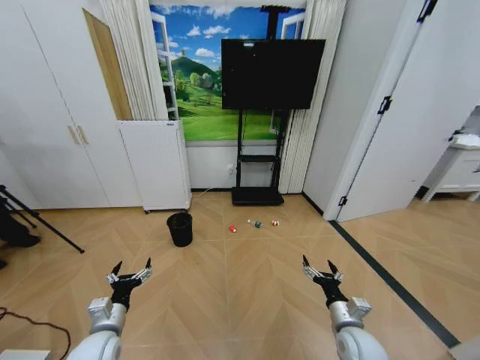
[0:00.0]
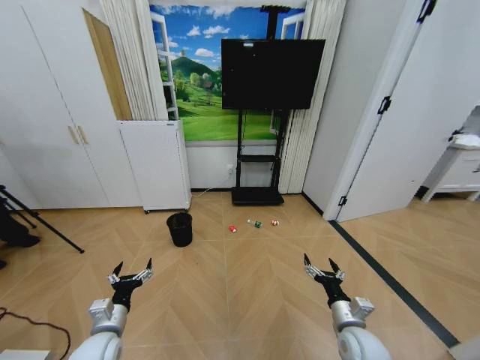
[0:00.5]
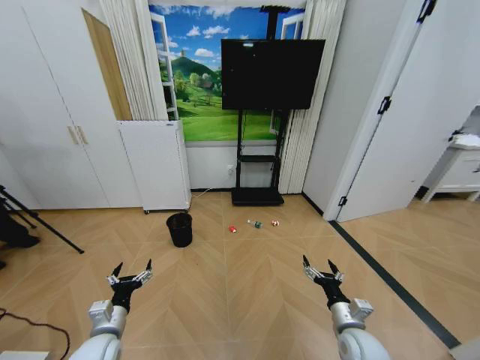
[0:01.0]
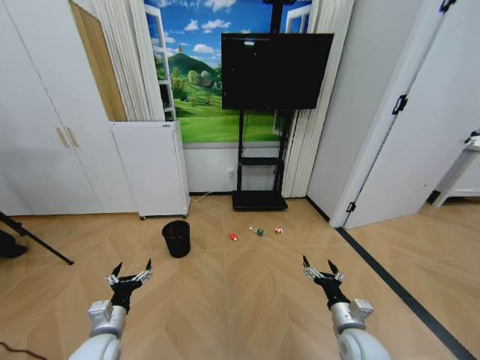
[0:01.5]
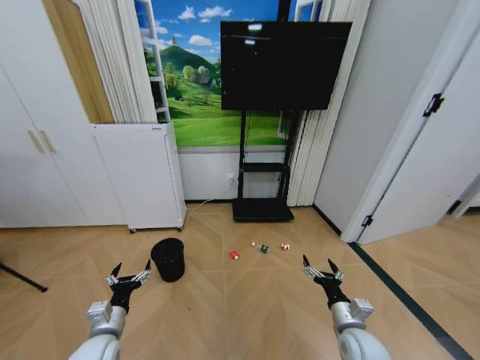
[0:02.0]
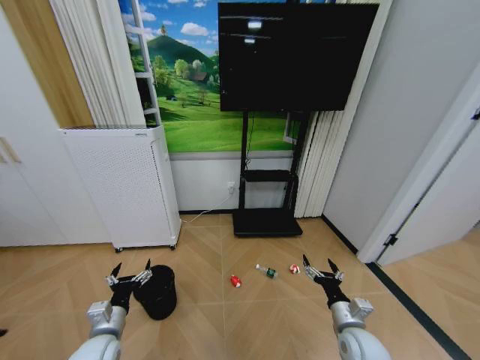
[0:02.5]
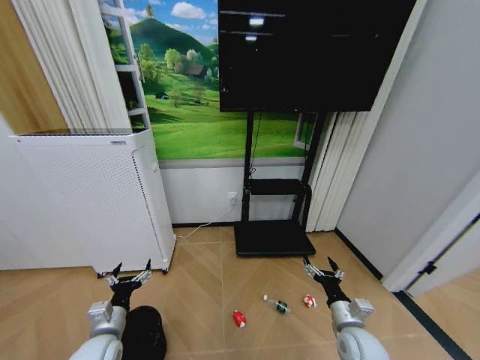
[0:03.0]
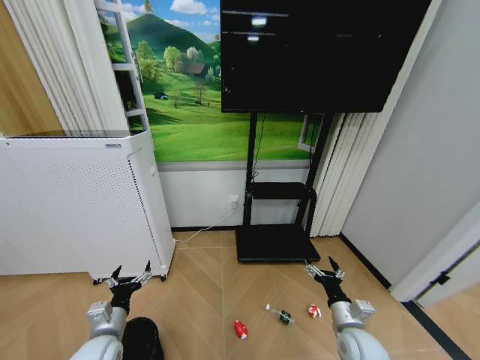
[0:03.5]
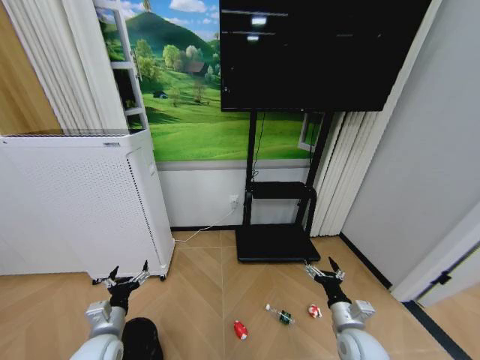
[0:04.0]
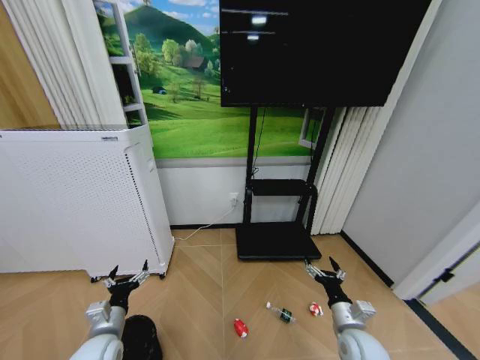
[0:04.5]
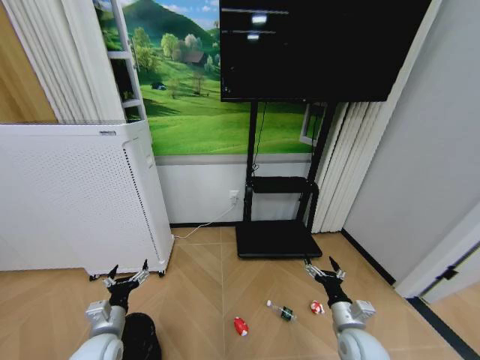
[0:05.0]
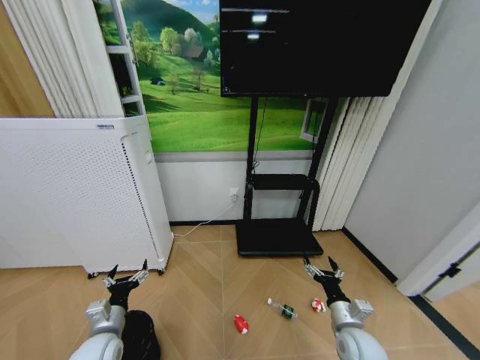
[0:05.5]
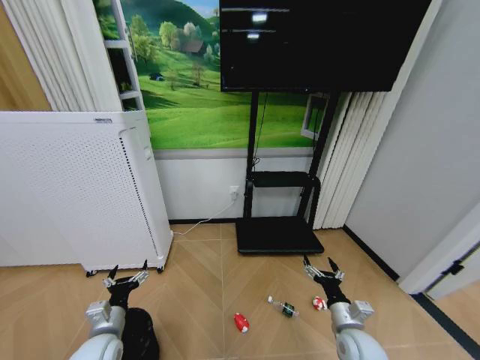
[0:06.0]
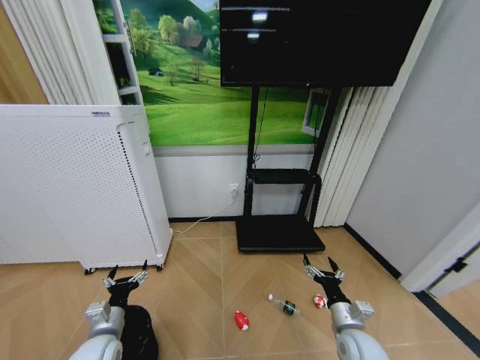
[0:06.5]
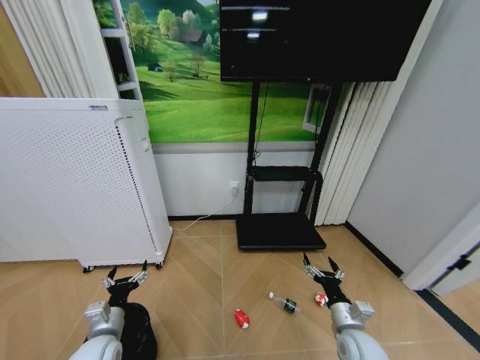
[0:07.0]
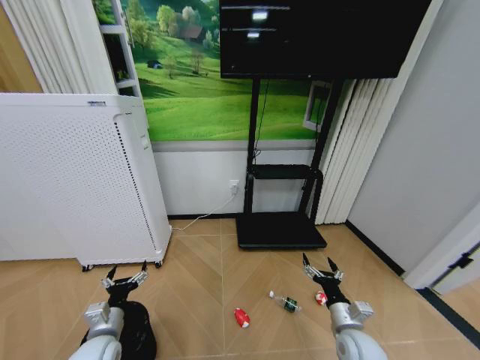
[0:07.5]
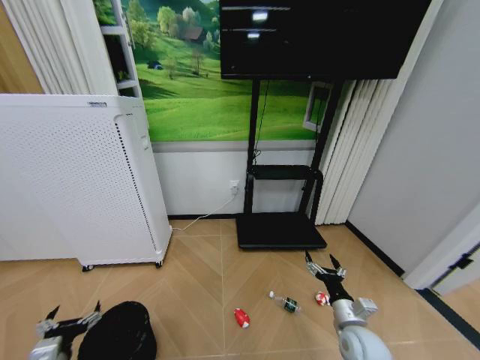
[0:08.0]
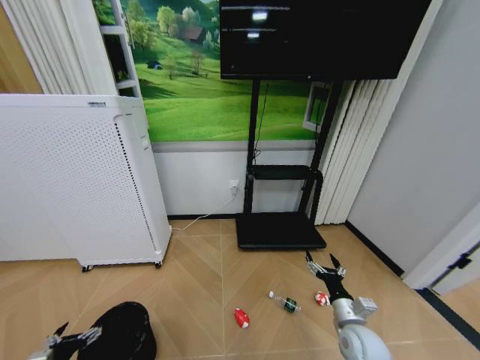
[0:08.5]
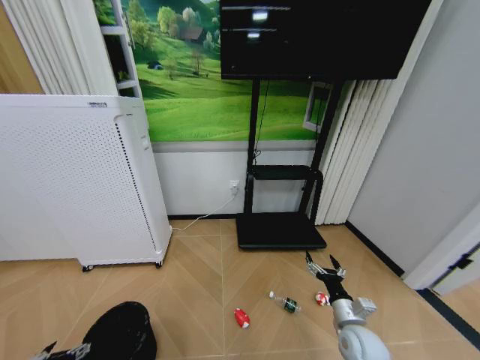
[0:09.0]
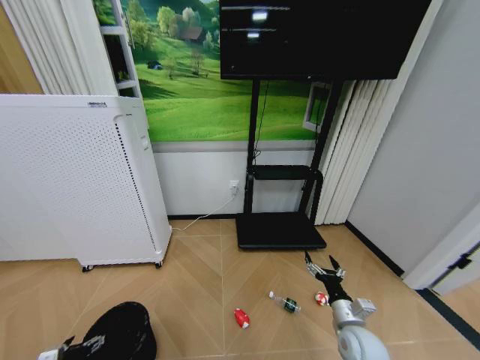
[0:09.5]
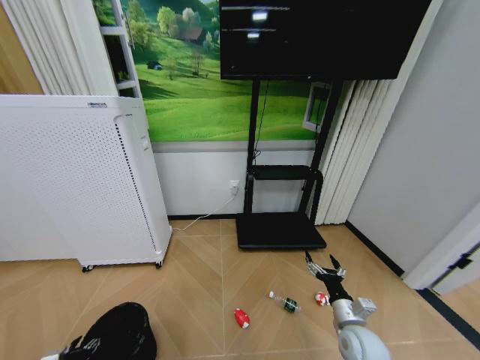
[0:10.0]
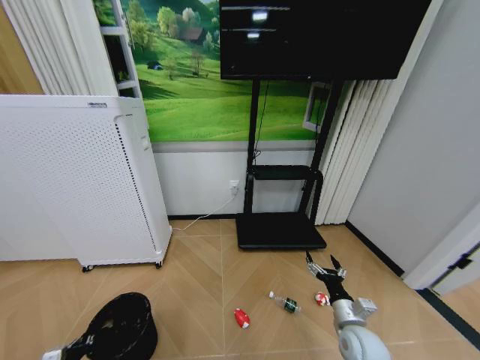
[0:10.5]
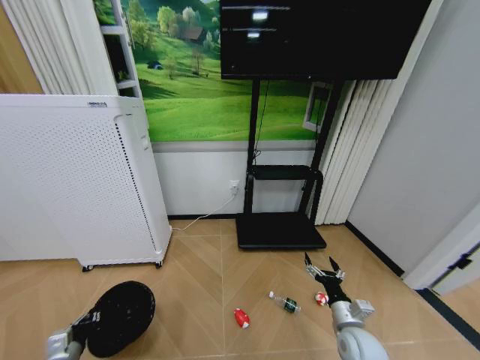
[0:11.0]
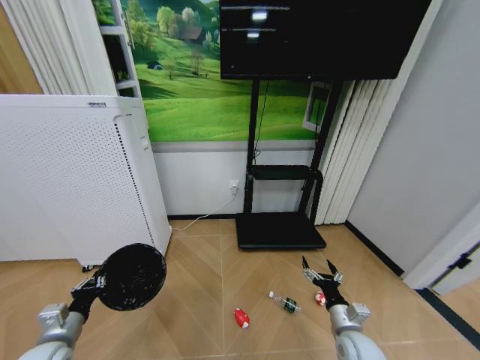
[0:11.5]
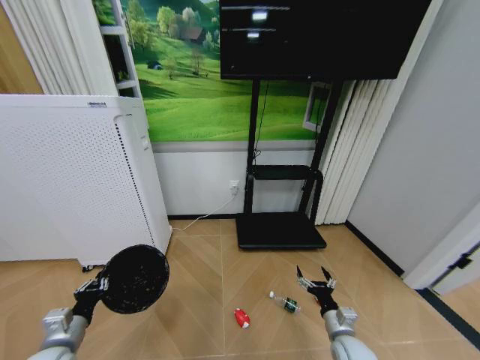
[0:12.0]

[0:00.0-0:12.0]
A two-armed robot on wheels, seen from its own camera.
Task of the whole recording: Pick up the trash bin and place the garbage on the floor into it.
0:04.0 to 0:06.0: The two grippers keep their place.
0:06.0 to 0:08.0: The left gripper heads backward and to the left, covering some 10 cm.
0:08.0 to 0:10.0: The left gripper moves downward and to the left, roughly 15 cm.
0:10.0 to 0:12.0: The left gripper shifts approximately 15 cm upward and to the right, and closes.

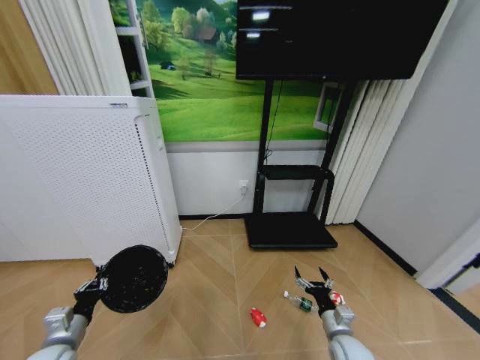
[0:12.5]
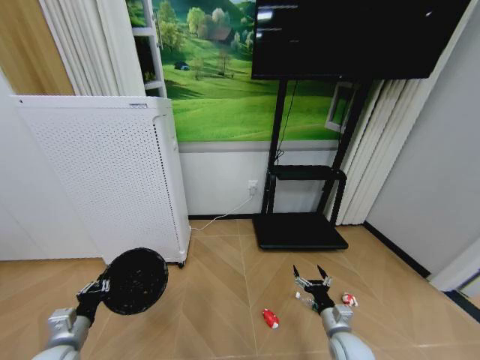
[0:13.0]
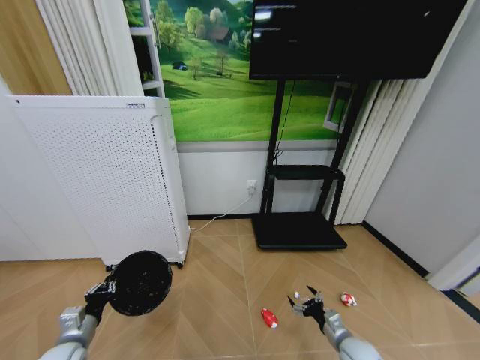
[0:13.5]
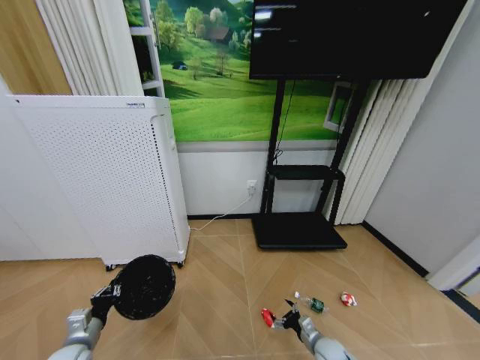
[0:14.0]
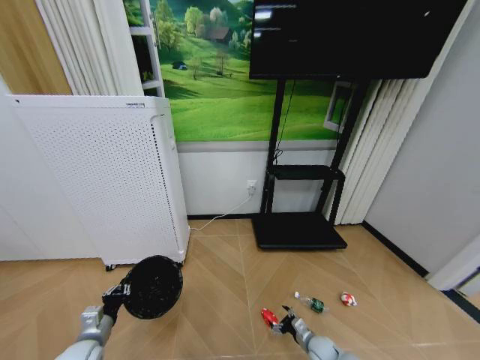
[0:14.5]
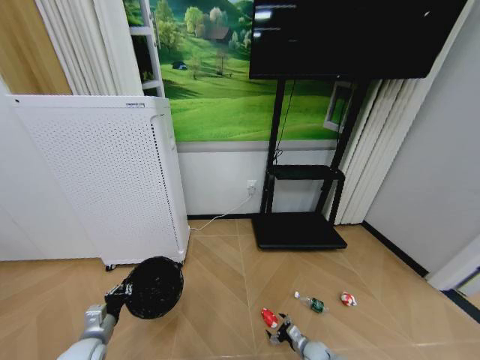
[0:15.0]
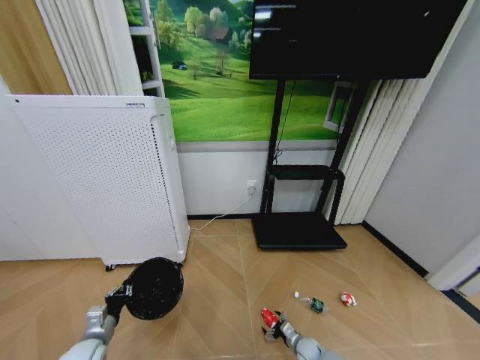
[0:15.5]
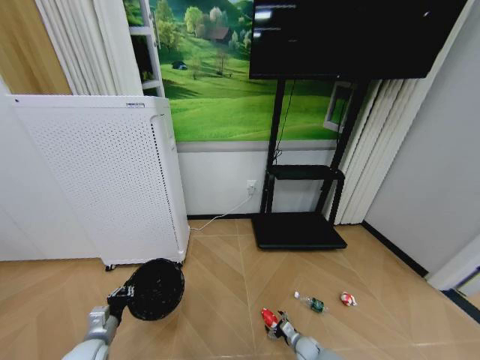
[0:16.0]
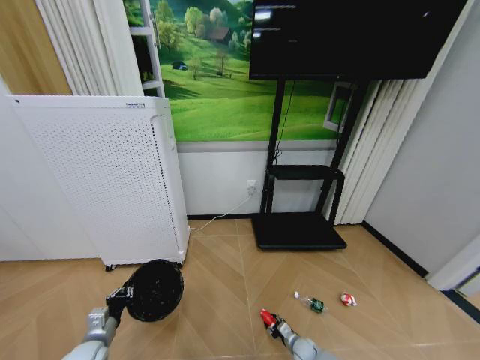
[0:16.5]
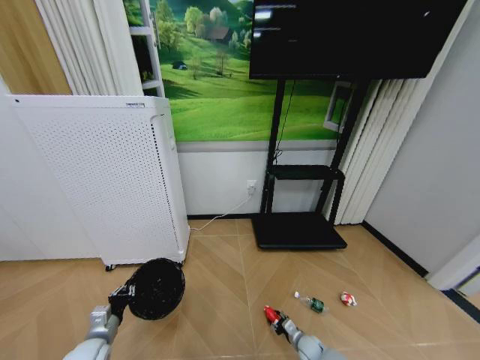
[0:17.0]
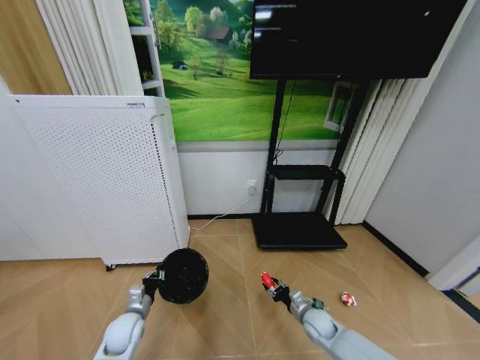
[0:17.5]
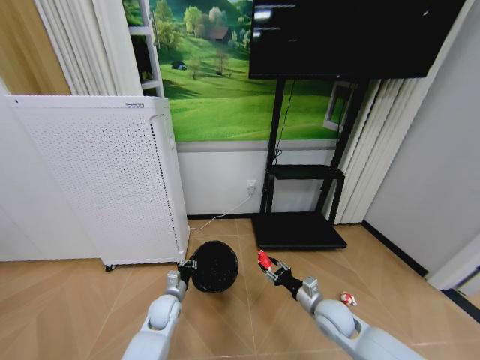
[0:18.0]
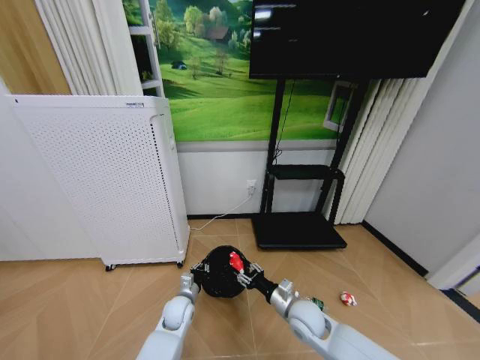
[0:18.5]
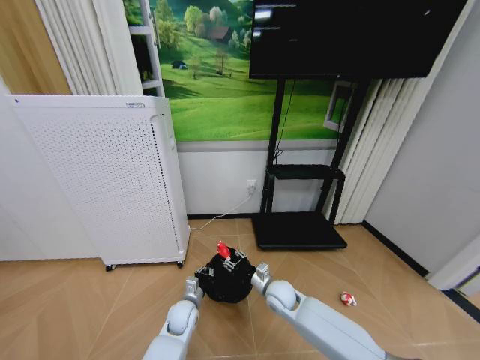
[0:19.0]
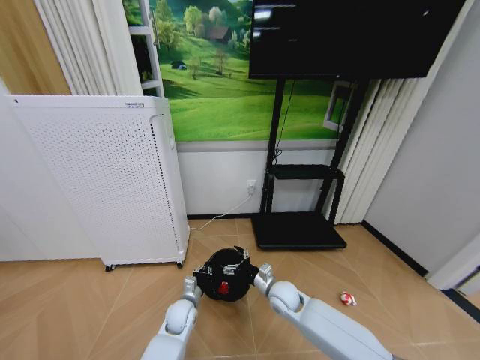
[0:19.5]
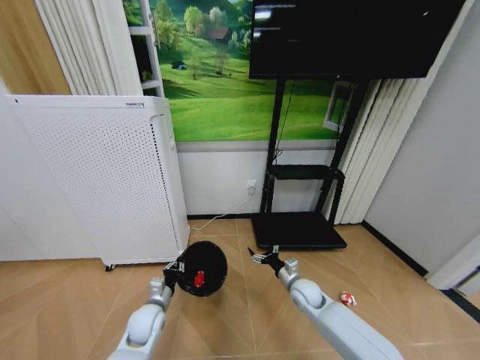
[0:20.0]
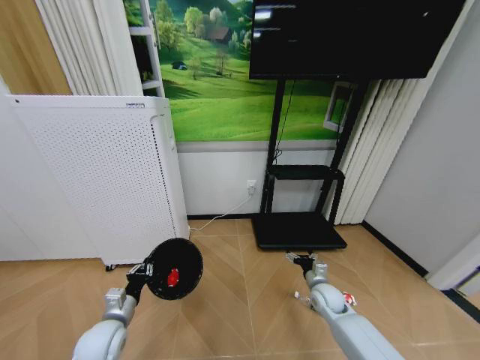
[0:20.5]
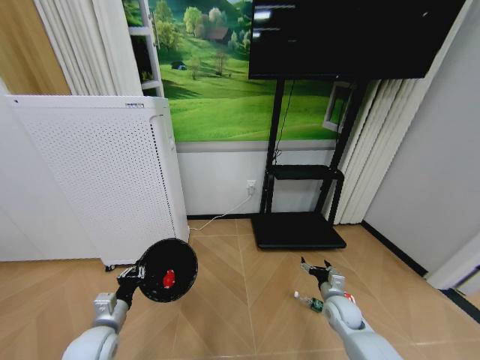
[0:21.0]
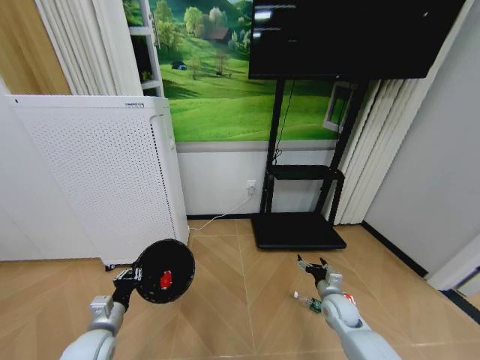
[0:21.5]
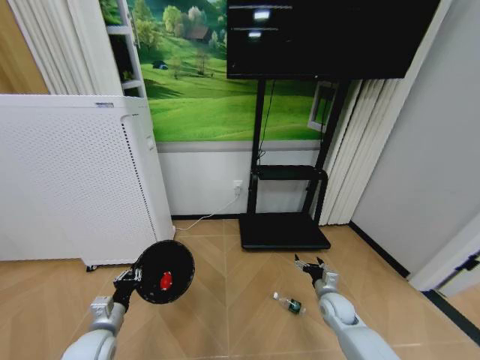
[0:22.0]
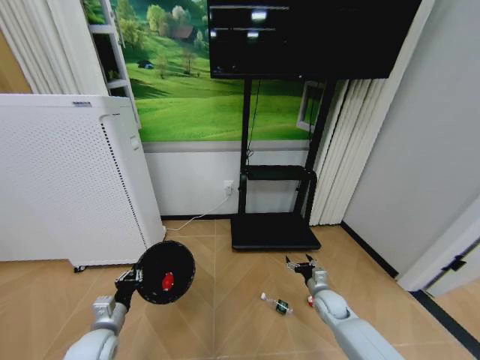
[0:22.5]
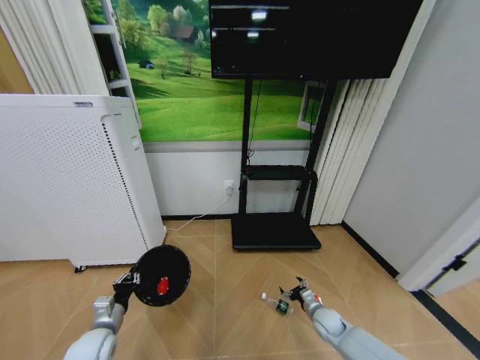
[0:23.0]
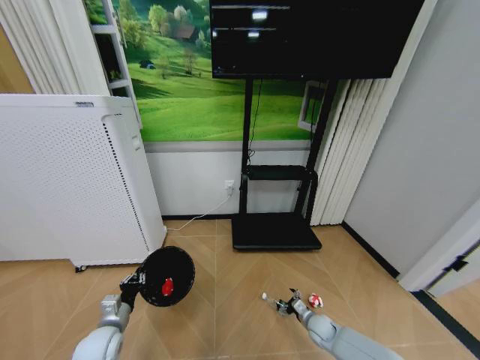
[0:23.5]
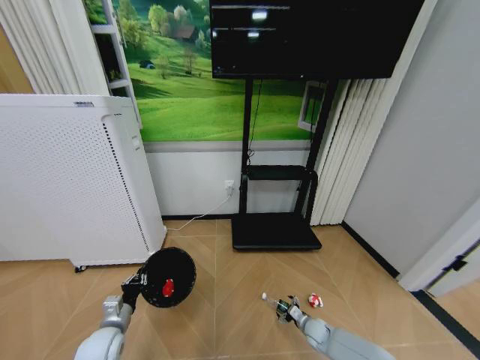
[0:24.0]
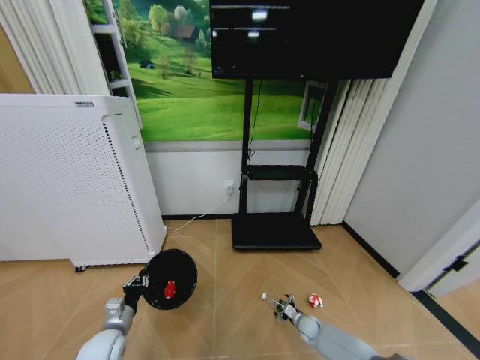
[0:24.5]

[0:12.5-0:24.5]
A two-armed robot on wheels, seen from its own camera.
Task of the whole recording: Pick up the trash bin and place the garbage on the floor into it.
0:12.5 to 0:14.5: The left gripper goes some 5 cm downward; the right gripper moves downward, roughly 15 cm.
0:14.5 to 0:16.5: The right gripper is displaced downward by roughly 5 cm, and closes up.
0:16.5 to 0:18.5: The left gripper shifts some 25 cm to the right and forward. The right gripper travels upward by approximately 25 cm.
0:18.5 to 0:20.5: The left gripper is displaced to the left, backward and upward by approximately 20 cm; the right gripper moves to the right and forward, some 15 cm, and opens.
0:22.5 to 0:24.5: The right gripper moves downward, about 15 cm.

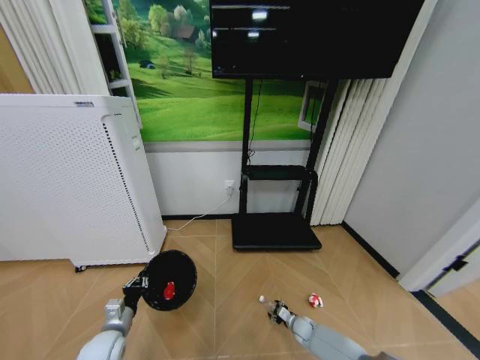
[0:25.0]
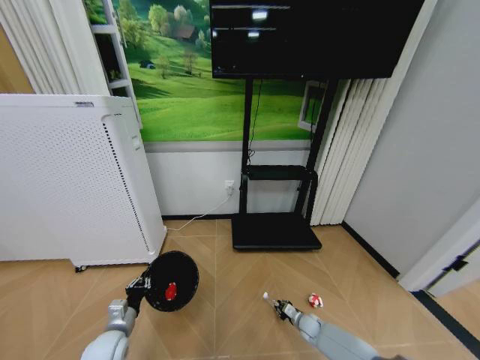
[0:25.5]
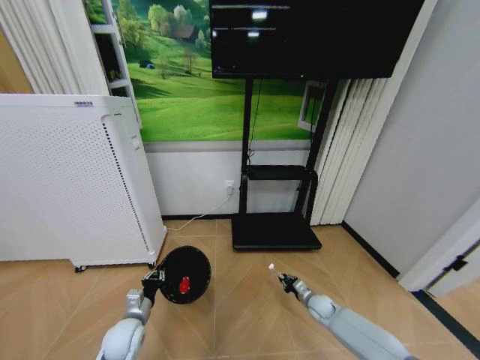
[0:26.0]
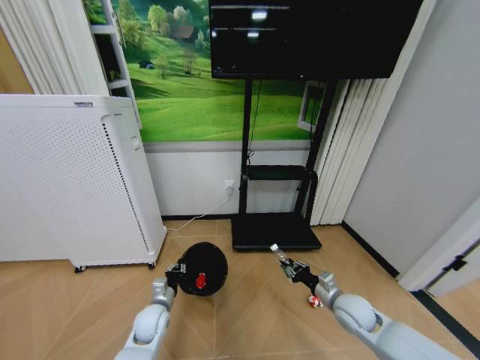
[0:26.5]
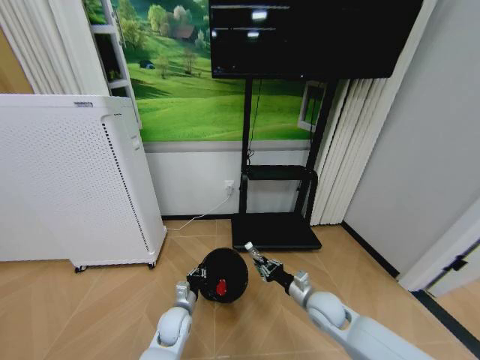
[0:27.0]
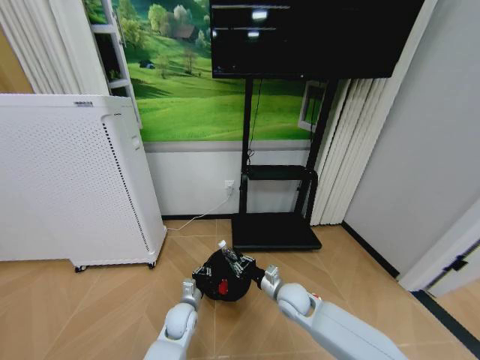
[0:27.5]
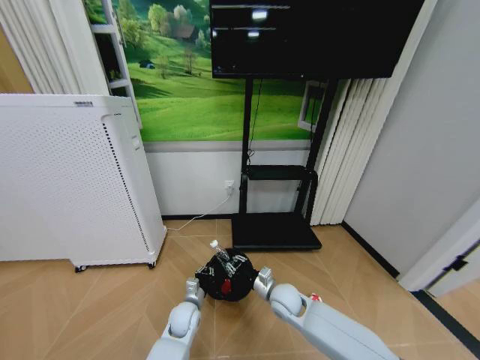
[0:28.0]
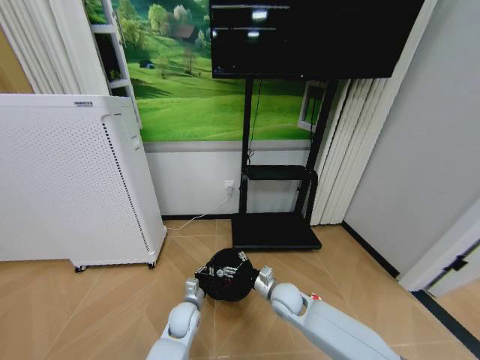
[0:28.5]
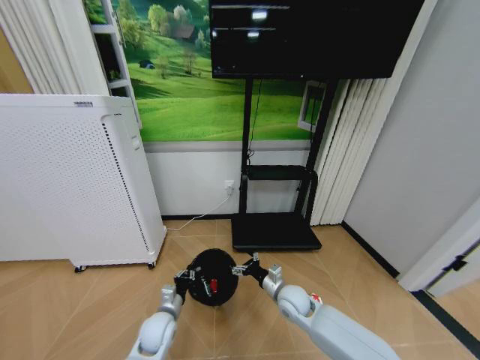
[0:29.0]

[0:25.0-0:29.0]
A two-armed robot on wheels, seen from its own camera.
Task of the whole recording: Pick up the trash bin and place the garbage on the floor into it.
0:25.0 to 0:27.0: The right gripper shifts roughly 25 cm upward, and closes up, while the left gripper shifts roughly 20 cm to the right and forward.
0:27.0 to 0:29.0: The right gripper moves to the left, about 10 cm, and opens.
